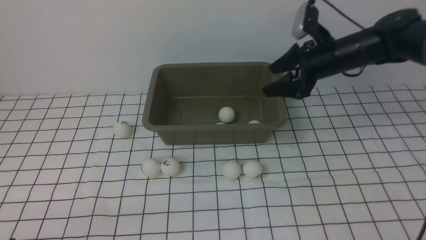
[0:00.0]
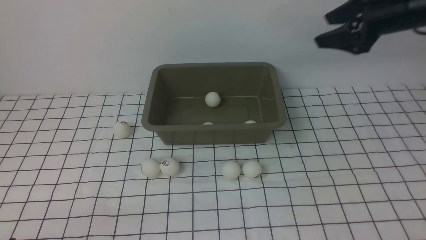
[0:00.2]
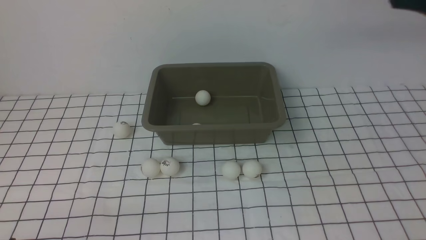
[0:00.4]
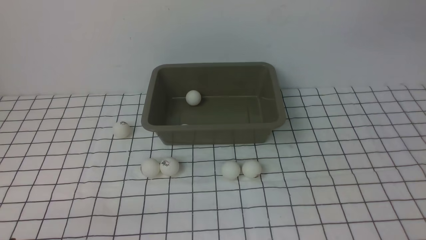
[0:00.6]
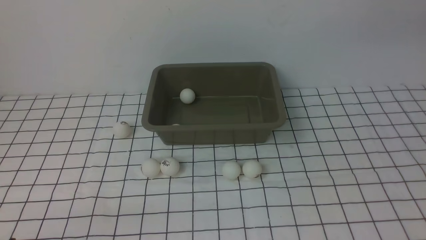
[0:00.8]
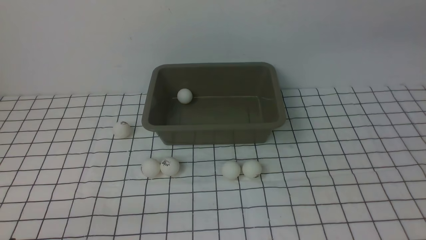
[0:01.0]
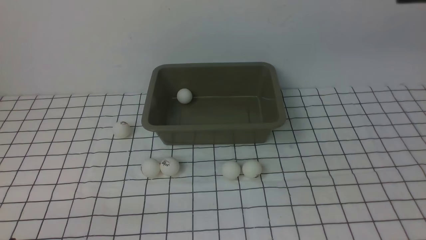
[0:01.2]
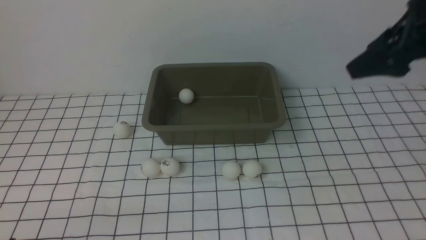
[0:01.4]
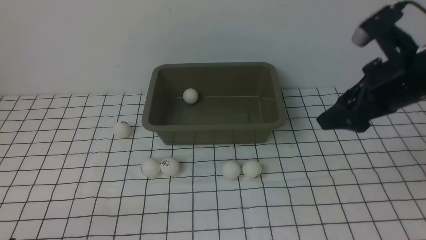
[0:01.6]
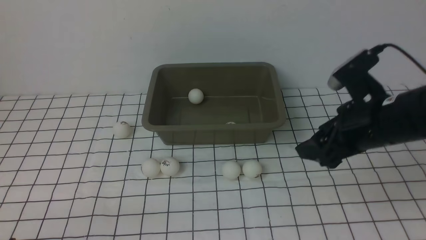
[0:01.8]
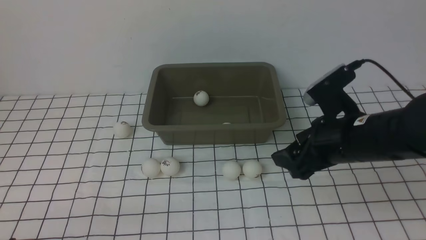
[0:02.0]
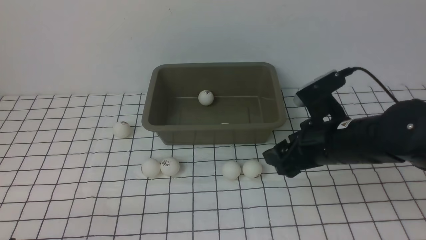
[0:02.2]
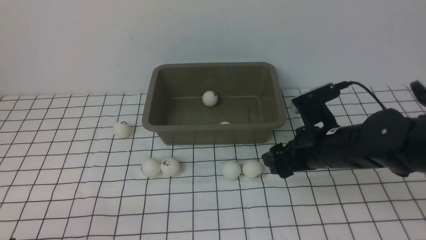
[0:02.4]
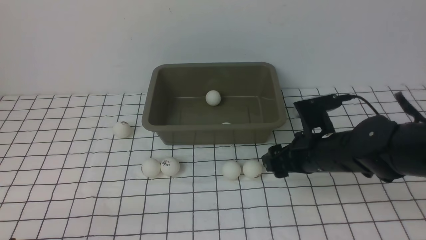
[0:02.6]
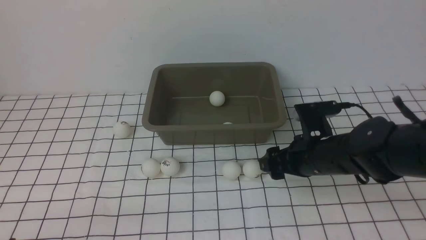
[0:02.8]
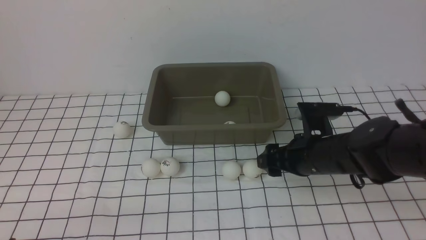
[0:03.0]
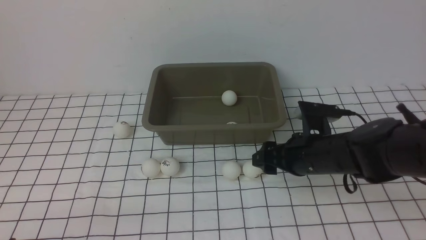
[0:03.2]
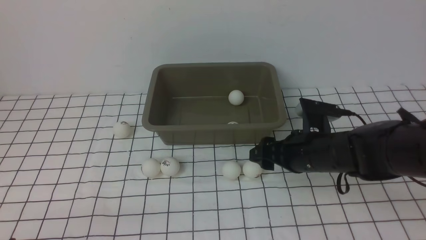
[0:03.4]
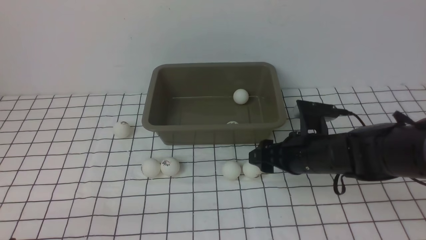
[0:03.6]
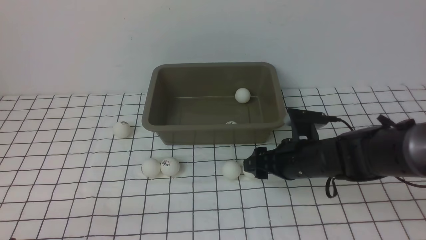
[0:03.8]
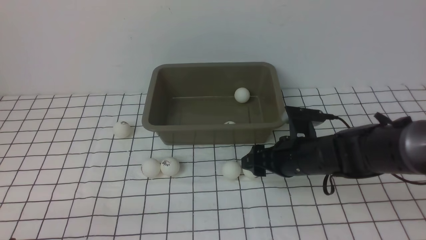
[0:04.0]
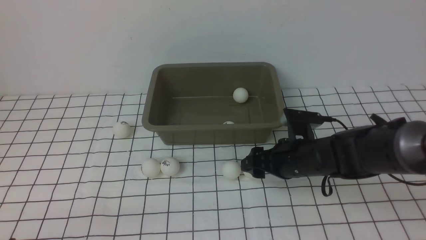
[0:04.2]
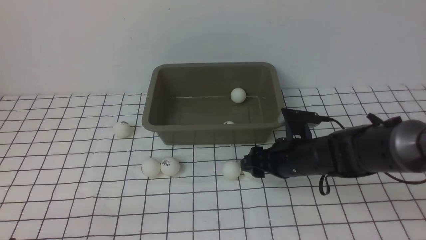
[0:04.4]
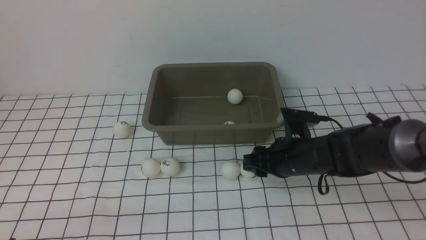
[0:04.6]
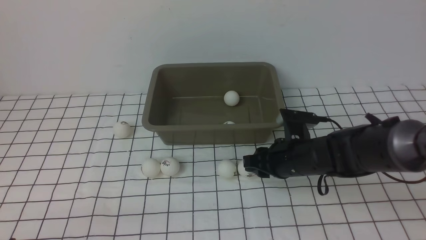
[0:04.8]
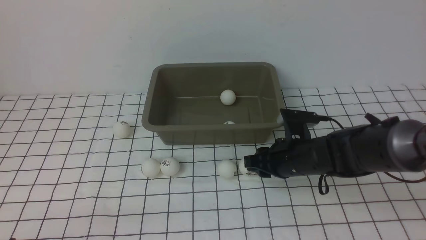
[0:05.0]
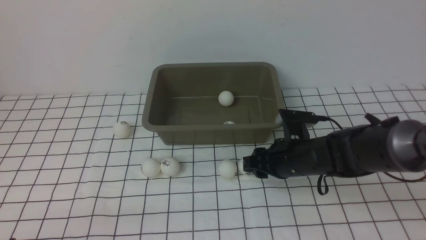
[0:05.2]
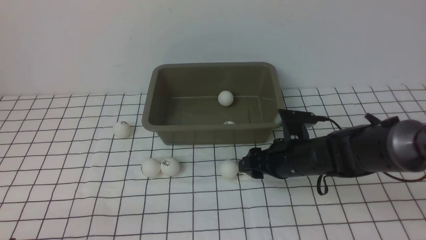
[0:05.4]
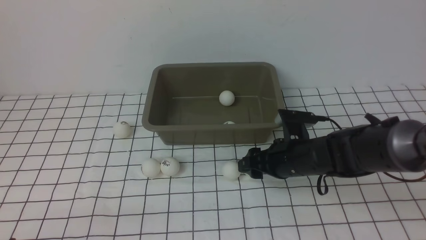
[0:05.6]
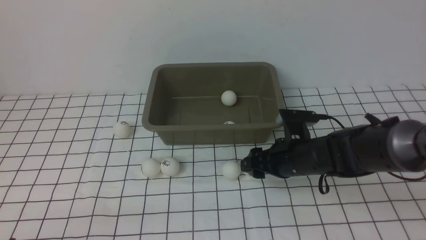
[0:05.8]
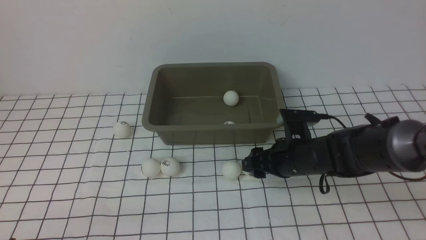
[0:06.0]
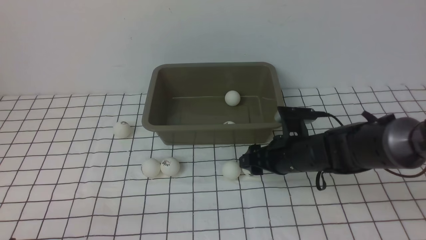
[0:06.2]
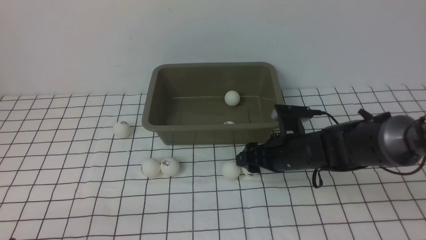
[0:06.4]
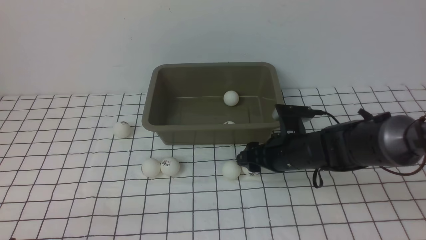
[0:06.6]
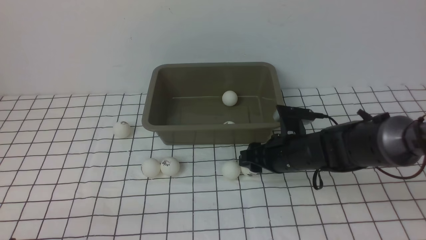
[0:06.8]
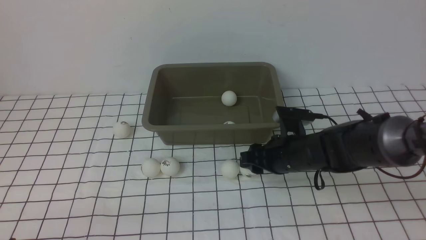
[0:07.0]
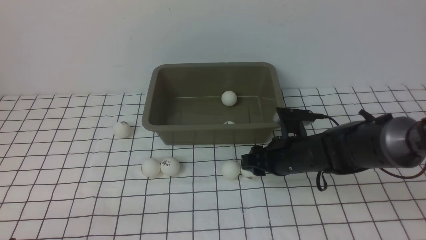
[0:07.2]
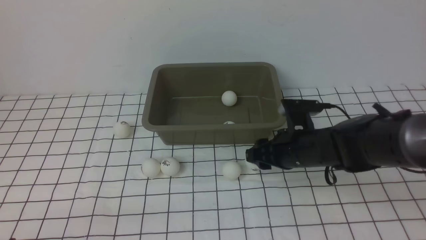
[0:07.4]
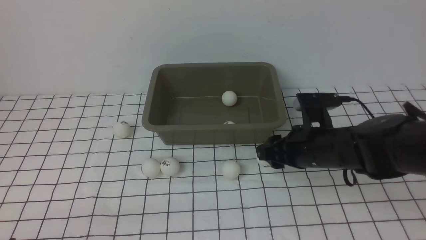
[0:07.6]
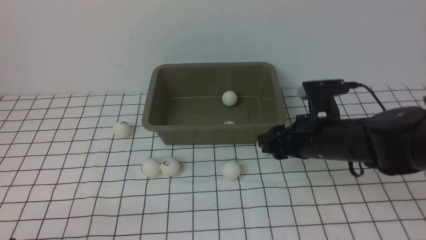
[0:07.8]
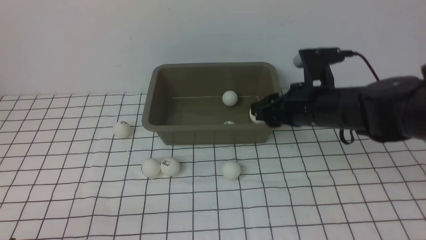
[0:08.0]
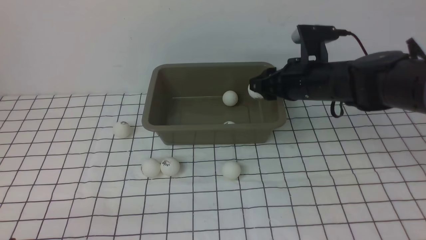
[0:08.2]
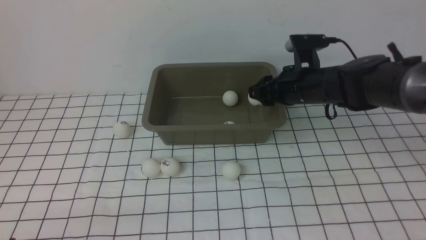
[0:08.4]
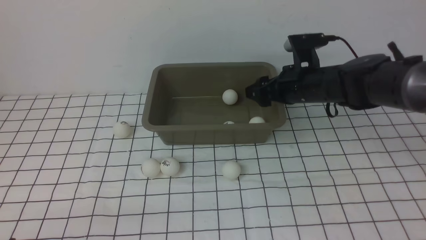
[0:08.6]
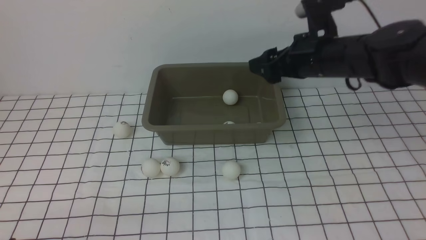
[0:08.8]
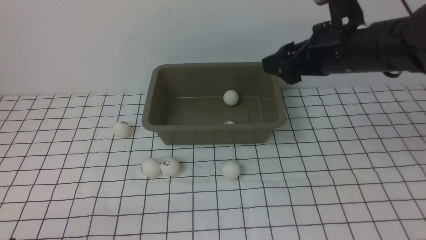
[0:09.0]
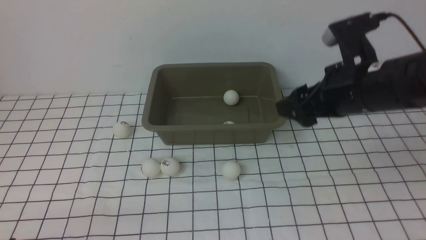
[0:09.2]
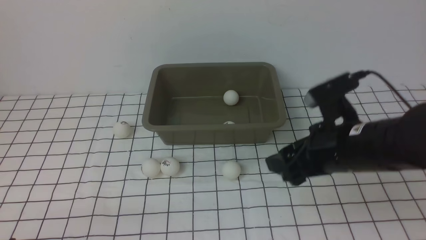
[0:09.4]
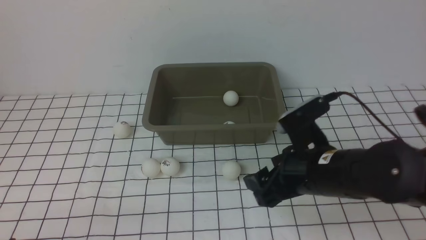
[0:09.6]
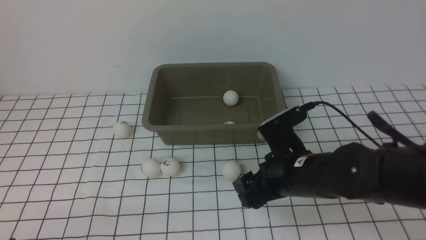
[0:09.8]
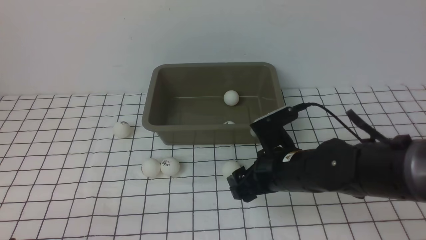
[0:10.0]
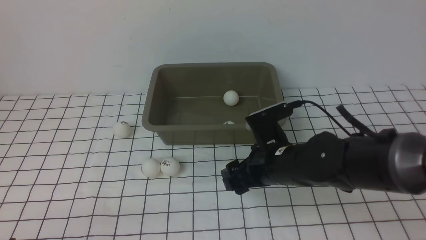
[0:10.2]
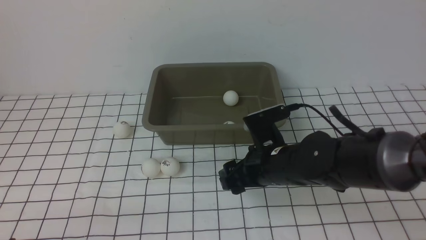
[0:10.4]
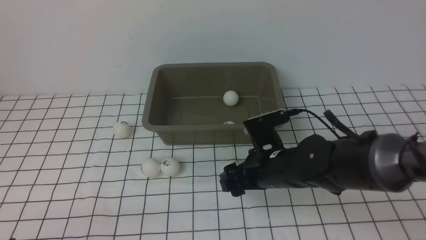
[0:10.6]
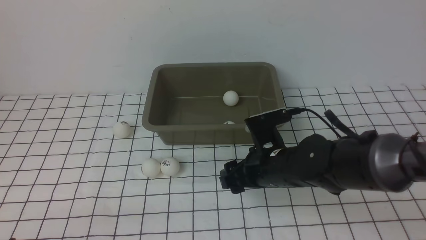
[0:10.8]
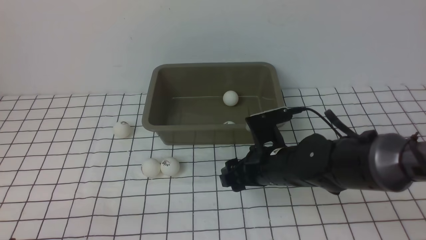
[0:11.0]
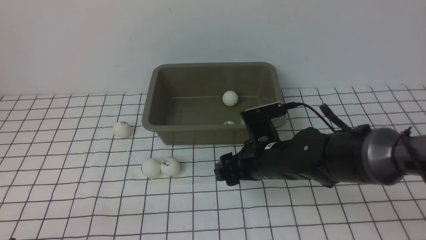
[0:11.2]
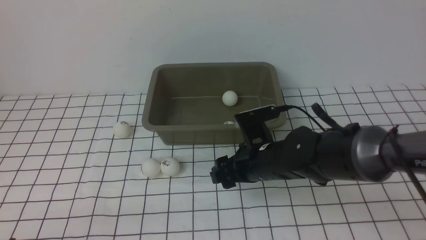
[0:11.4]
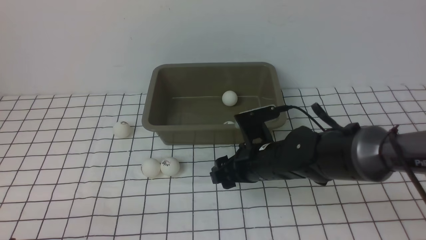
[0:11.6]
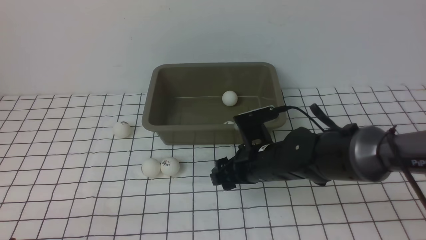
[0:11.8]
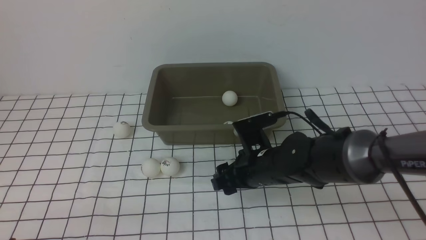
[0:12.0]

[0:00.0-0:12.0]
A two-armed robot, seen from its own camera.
Step, 0:00.2 to 0:07.4: use the right arm to clamp the table tennis ball closest to it.
Step, 0:07.8 to 0:08.6: use the right arm to put the table tennis ball into the box.
0:00.0 to 0:01.6: The right gripper travels backward by roughly 15 cm, and goes to the right and returns, about 15 cm each way.
0:01.6 to 0:03.0: The right gripper is displaced downward and to the left by roughly 10 cm.
0:03.0 to 0:04.4: The grippers move only a little.
0:04.4 to 0:06.0: The right gripper closes and opens again.
0:06.0 to 0:07.6: The right gripper shifts some 5 cm upward, and closes its fingers.
0:07.6 to 0:09.0: The right gripper travels upward by some 10 cm, and opens up.
0:09.0 to 0:10.4: The right gripper is displaced downward and to the left by some 15 cm.
0:10.4 to 0:12.0: The grippers stay close to where they were, moving slightly.

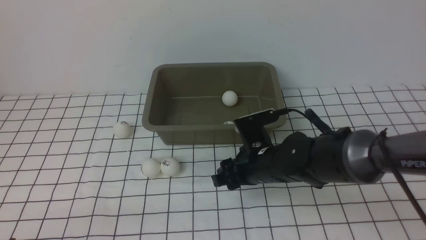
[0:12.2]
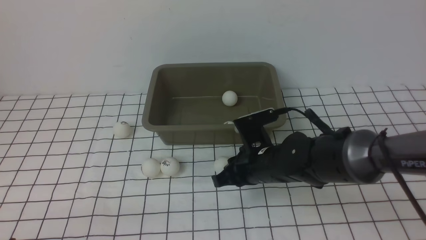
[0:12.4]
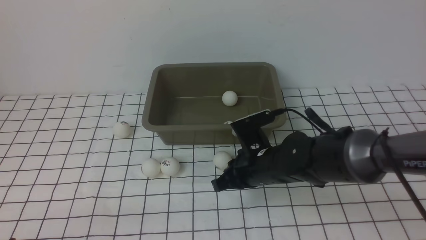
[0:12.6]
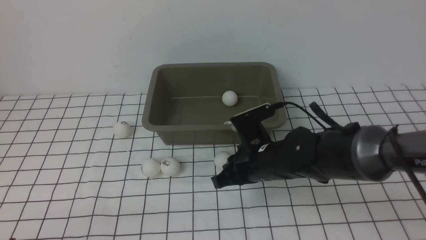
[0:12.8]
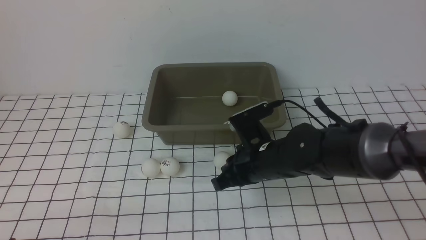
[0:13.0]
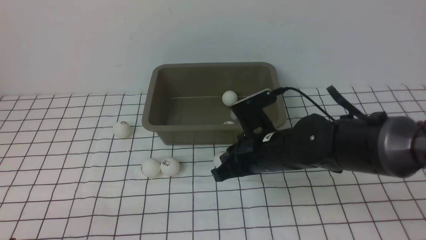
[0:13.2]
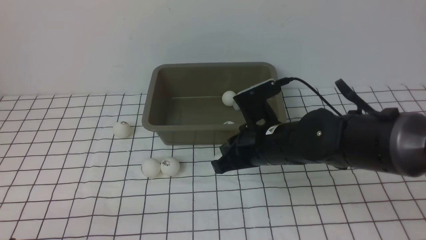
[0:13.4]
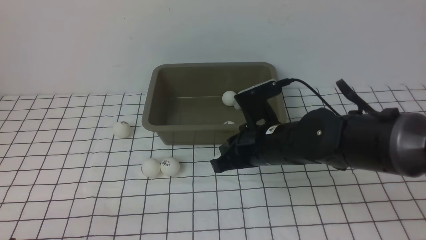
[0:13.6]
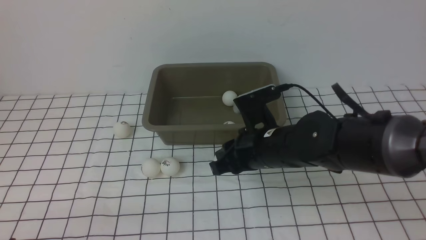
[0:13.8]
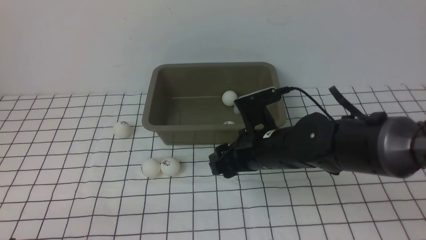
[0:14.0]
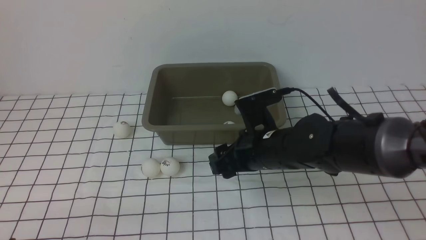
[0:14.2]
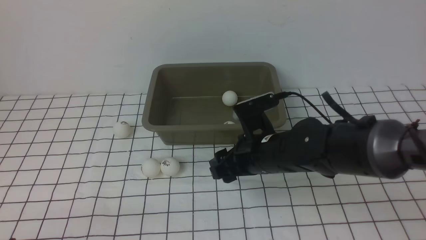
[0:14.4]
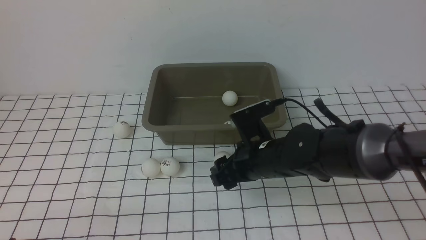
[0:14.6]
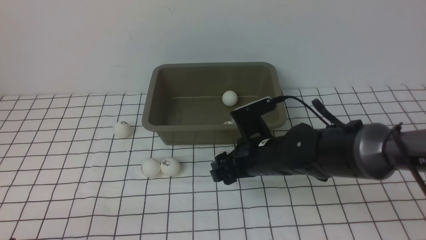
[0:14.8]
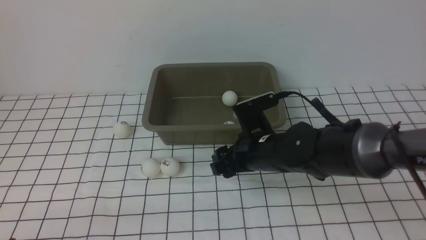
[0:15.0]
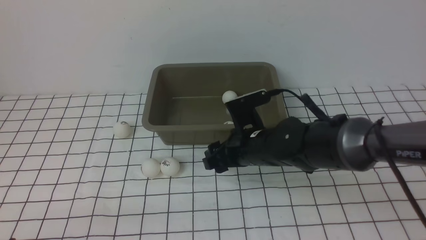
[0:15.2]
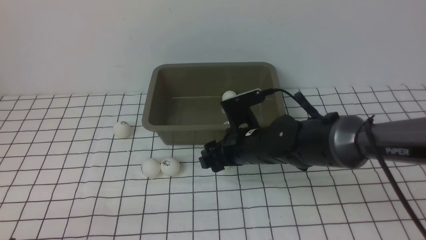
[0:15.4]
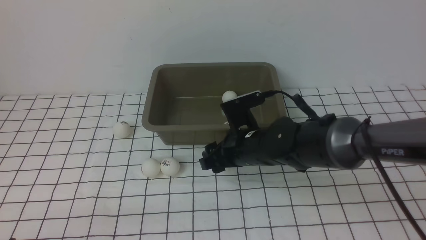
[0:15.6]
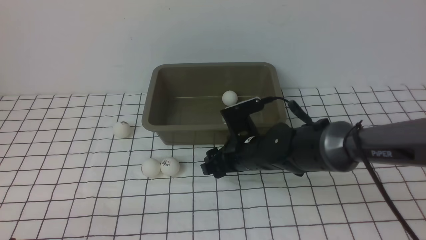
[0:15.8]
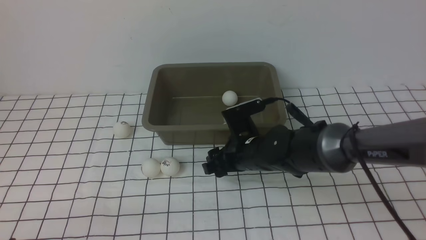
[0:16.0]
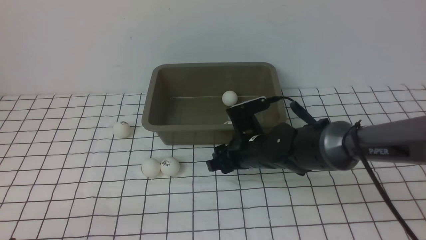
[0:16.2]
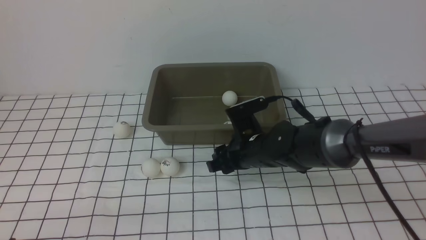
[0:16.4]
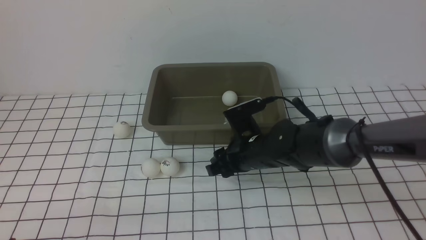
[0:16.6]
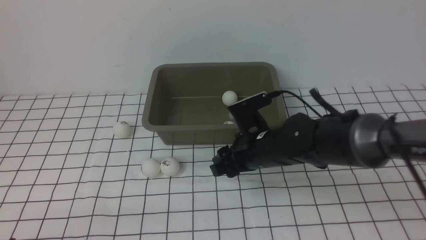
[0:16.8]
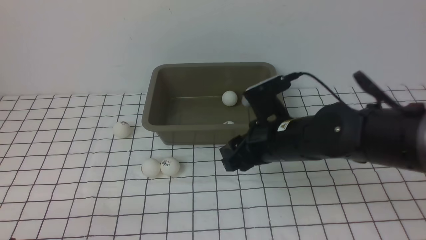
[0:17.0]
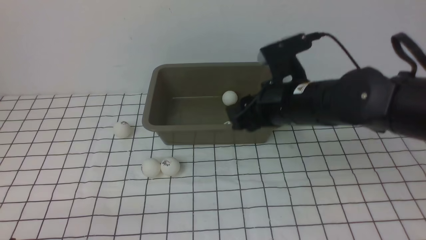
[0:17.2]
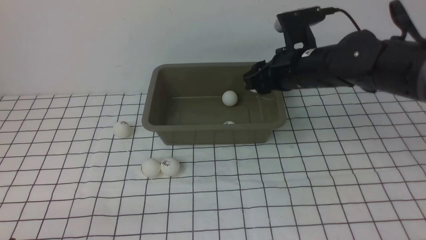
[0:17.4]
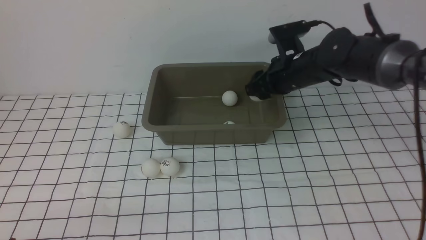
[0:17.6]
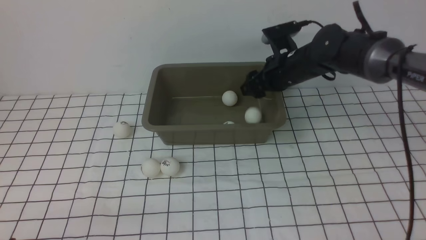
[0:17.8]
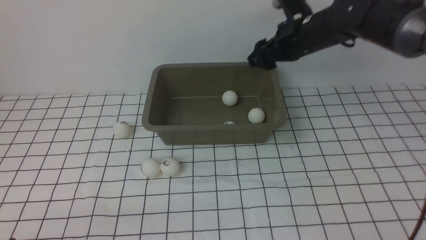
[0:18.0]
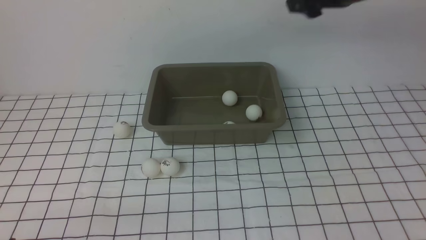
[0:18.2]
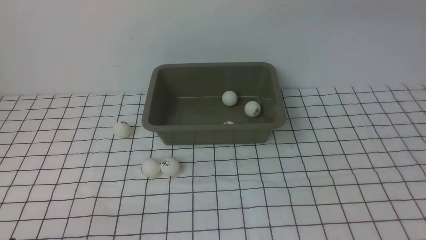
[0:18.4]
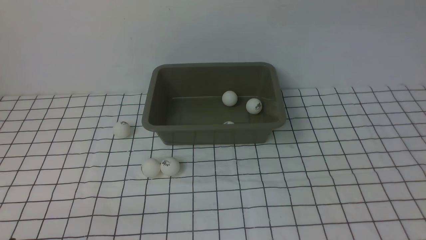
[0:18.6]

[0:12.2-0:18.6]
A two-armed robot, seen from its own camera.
Step, 0:12.2 to 0:17.0: use the right arm to clamp the table tennis ball closest to it.
Step, 0:17.2 to 0:17.8: use the right arm to put the table tennis ball into the box.
0:12.2 to 0:13.8: The right gripper heads upward, covering approximately 5 cm.
0:13.8 to 0:15.4: The right gripper shifts by some 5 cm, and opens up.
0:15.4 to 0:17.0: The right gripper goes approximately 5 cm upward, and closes its fingers.
0:17.0 to 0:18.6: The right gripper is displaced upward and to the right by approximately 30 cm, and opens its fingers.
